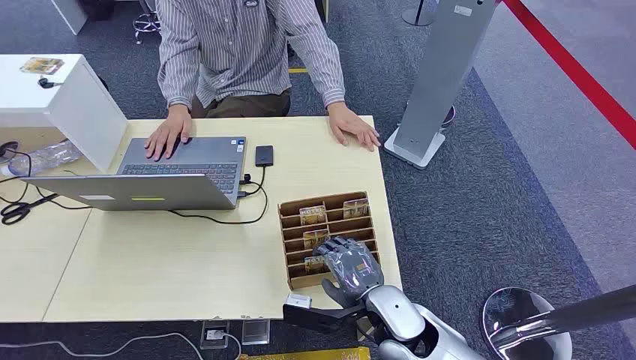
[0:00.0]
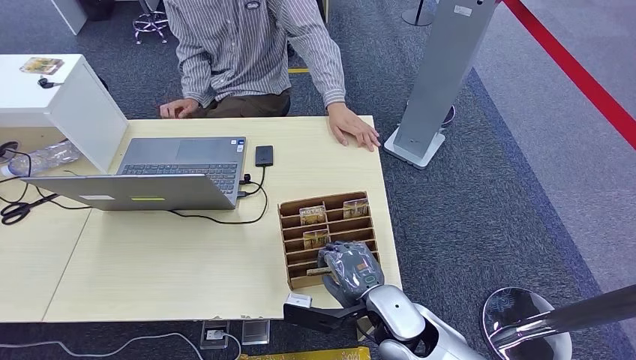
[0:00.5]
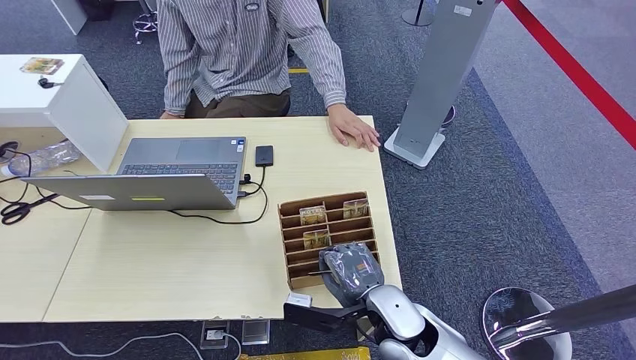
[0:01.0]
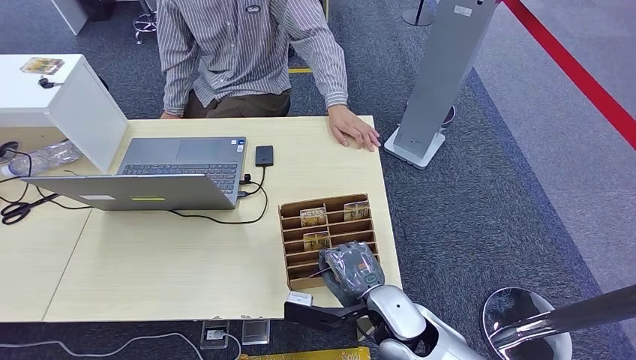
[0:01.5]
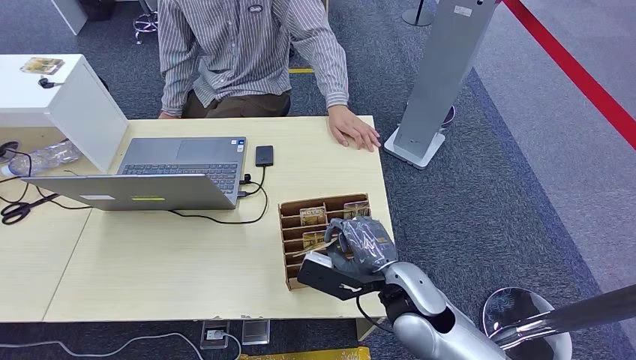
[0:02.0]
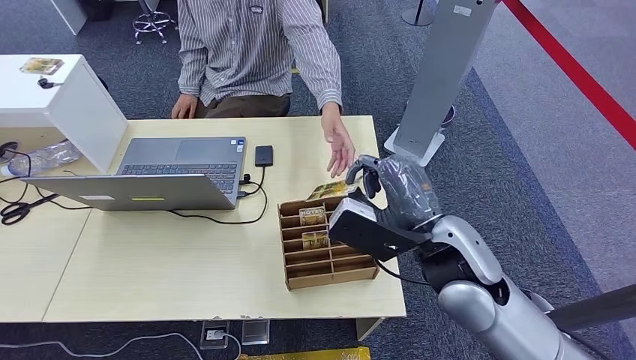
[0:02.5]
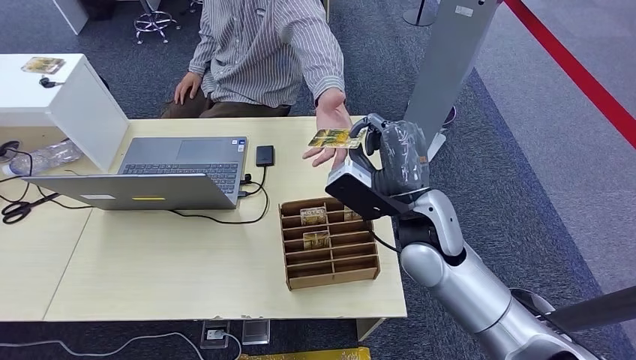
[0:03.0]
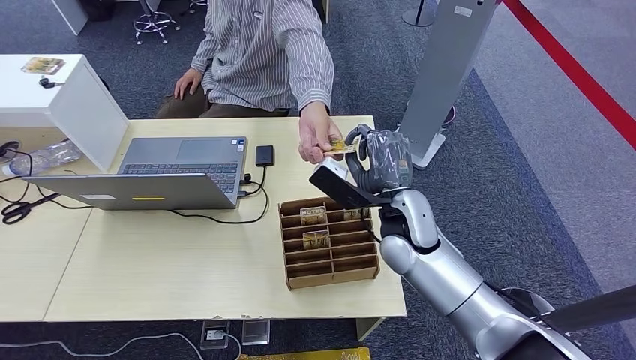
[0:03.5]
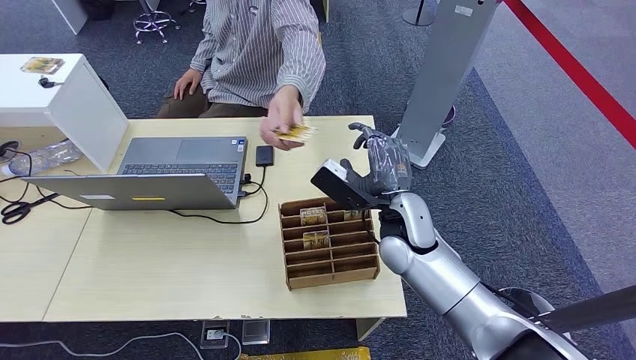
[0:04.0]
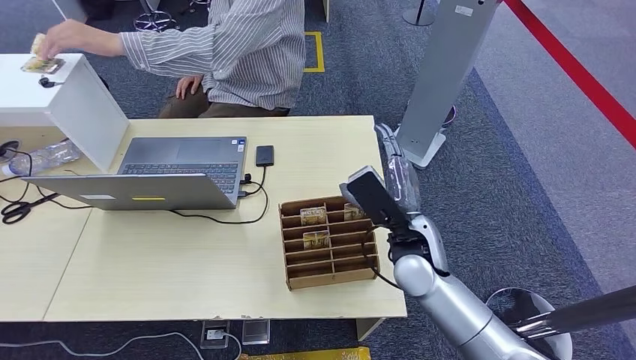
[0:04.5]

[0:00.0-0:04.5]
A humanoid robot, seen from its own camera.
Step, 0:00.0 to 0:01.5: Pick up the room card from the card holder.
Step, 0:03.0 to 0:04.5: Hand the room card to the target.
0:02.0 to 0:04.5: The right hand goes roughly 10 cm forward.
